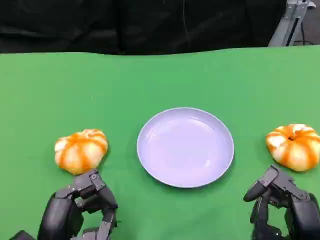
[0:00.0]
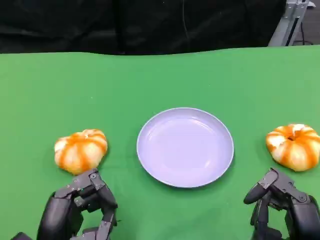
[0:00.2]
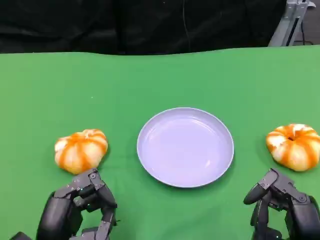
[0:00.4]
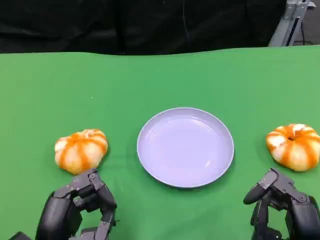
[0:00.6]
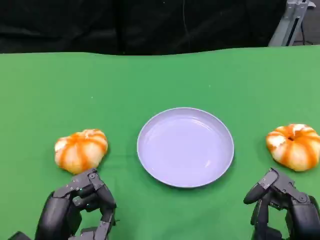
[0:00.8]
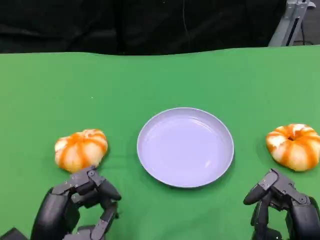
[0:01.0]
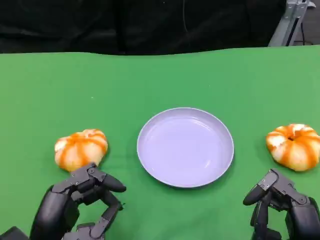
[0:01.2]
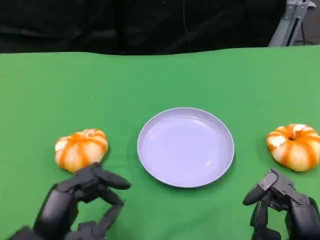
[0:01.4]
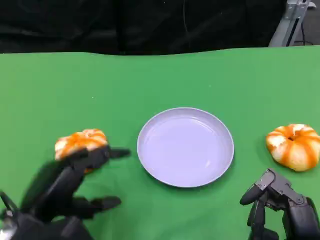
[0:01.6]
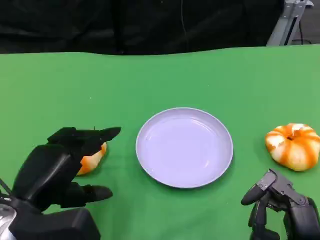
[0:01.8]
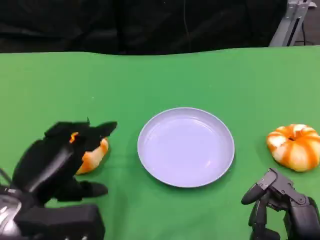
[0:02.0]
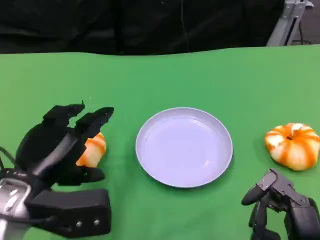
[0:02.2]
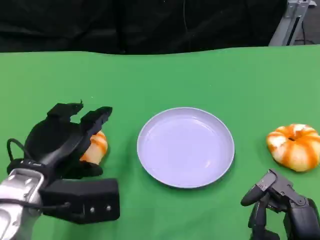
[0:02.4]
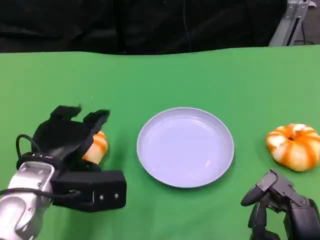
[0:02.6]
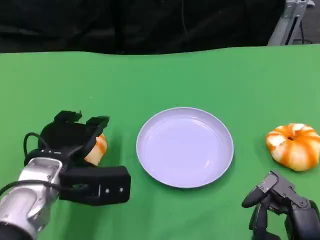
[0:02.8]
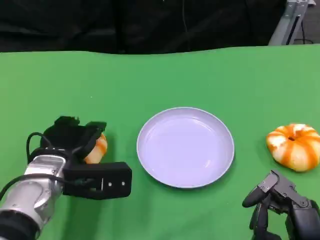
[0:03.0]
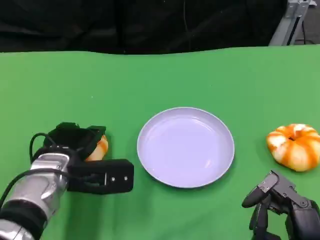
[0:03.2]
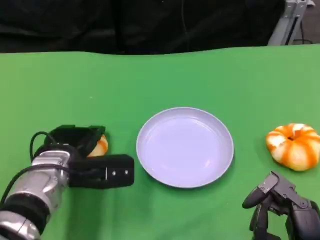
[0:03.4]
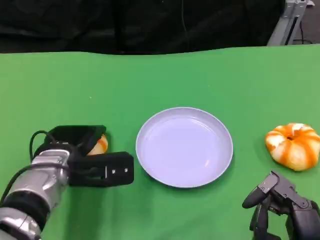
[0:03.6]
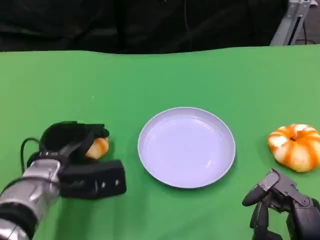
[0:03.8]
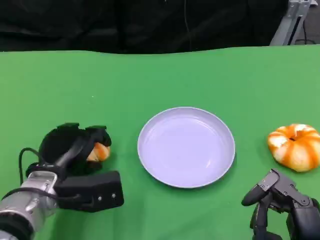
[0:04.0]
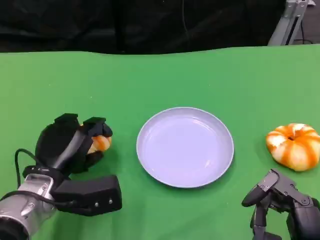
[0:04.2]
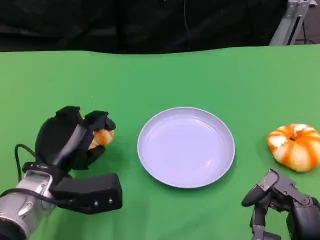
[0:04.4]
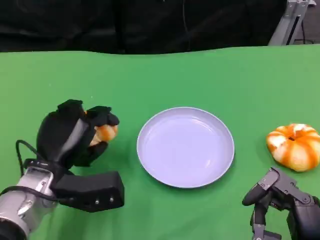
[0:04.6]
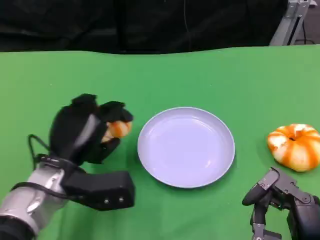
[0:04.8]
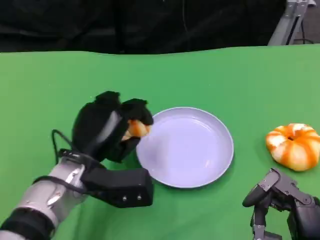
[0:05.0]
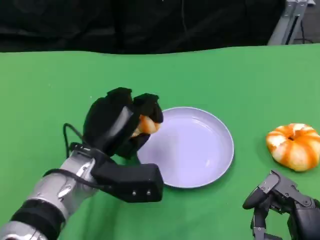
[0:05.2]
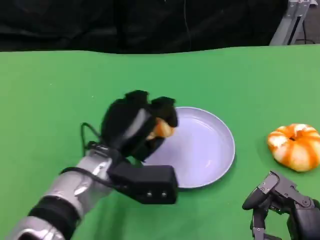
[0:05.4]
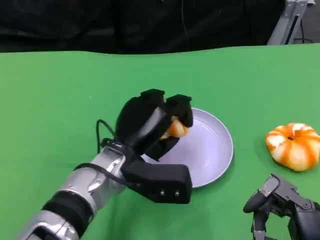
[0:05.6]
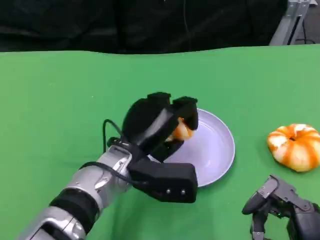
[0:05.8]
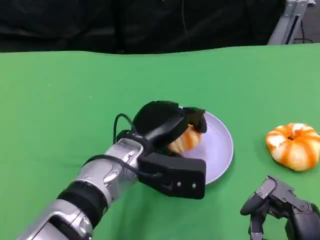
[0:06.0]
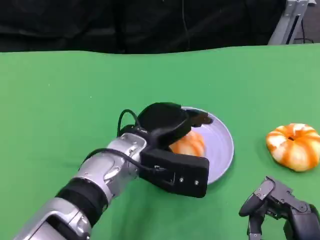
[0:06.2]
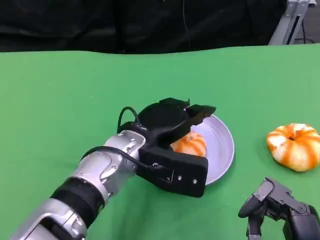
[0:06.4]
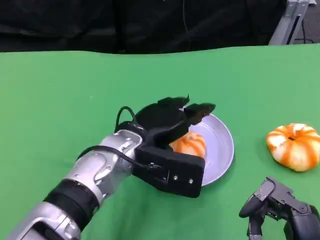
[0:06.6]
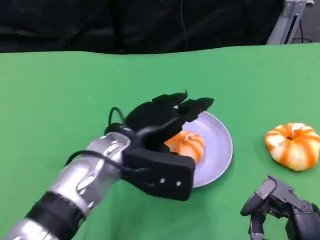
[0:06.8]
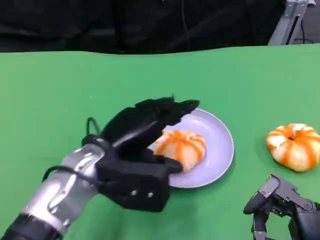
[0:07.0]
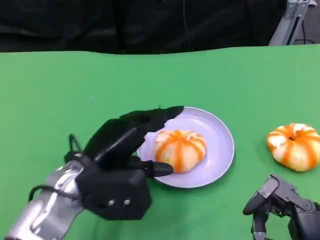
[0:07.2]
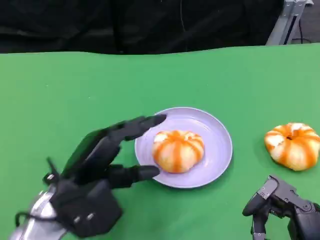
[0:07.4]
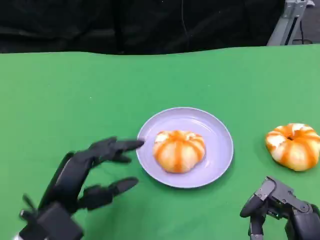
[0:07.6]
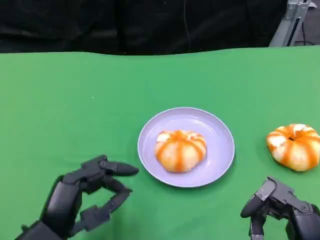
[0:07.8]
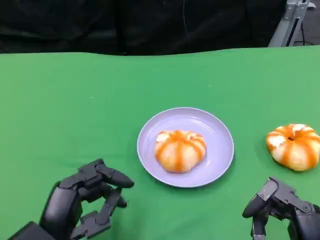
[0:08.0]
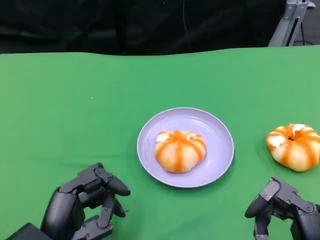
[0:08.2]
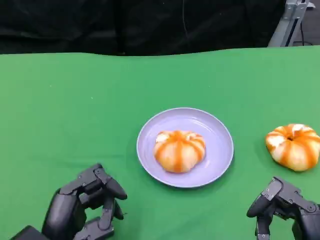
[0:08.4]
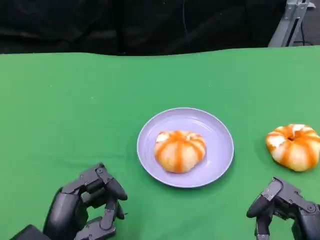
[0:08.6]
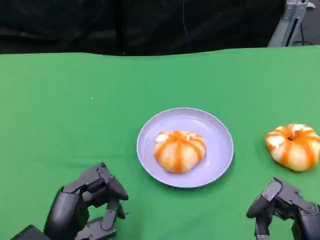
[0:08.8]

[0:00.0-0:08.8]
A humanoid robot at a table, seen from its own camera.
Task of the whole recording: Grasp the bread from the table and place it into the plate.
0:00.0 to 0:01.4: The hands stay close to where they were, moving slightly.
0:01.4 to 0:03.0: The left hand is displaced forward by about 15 cm.
0:04.4 to 0:05.8: The left hand goes some 10 cm to the right.
0:05.8 to 0:07.4: The left hand heads to the left and backward, covering about 10 cm.
0:07.4 to 0:08.8: The left hand goes roughly 5 cm backward.
